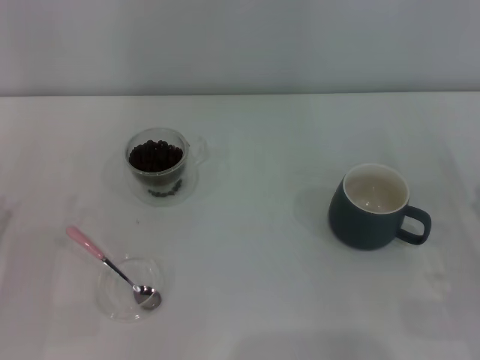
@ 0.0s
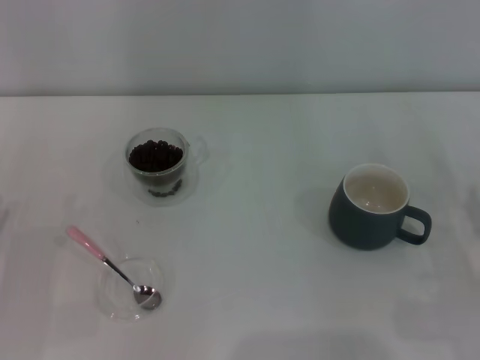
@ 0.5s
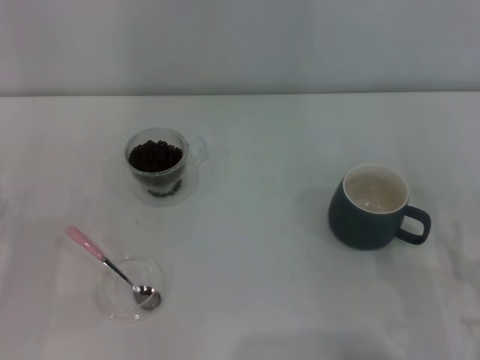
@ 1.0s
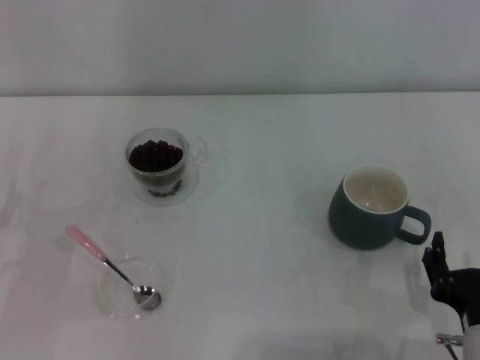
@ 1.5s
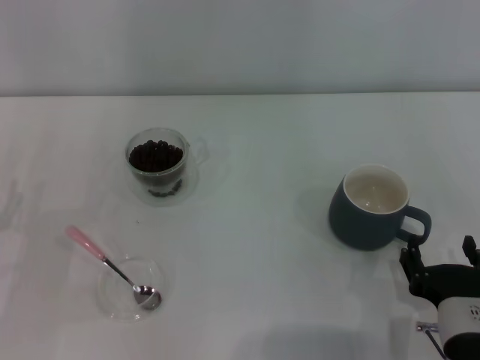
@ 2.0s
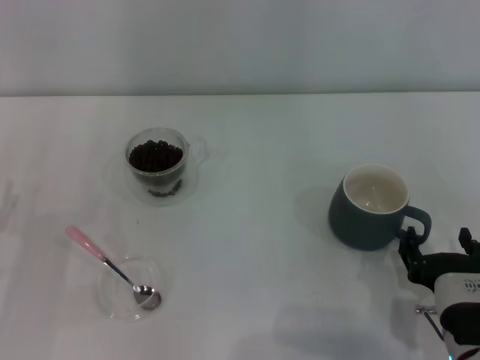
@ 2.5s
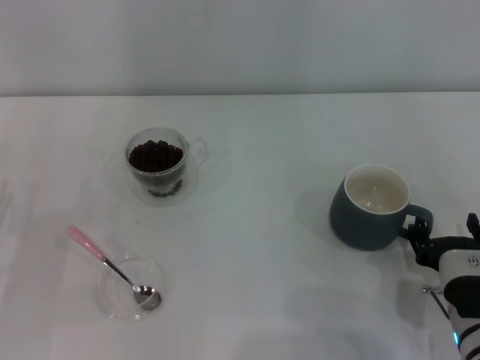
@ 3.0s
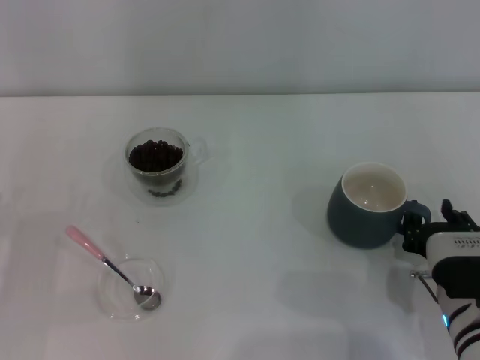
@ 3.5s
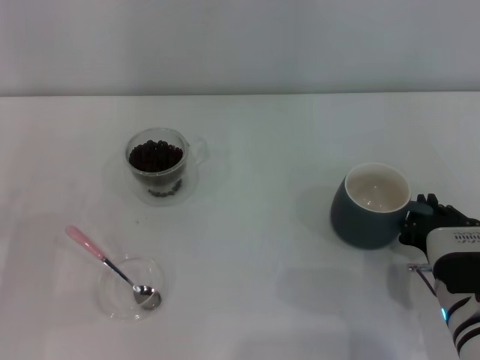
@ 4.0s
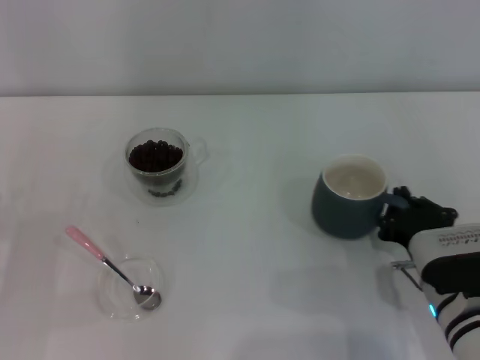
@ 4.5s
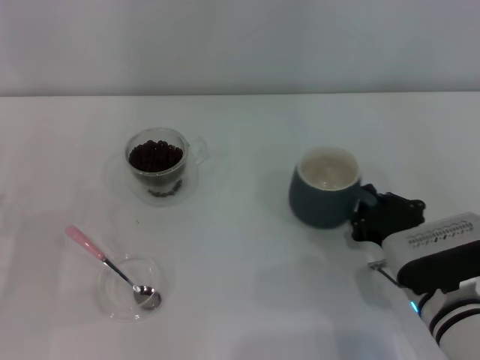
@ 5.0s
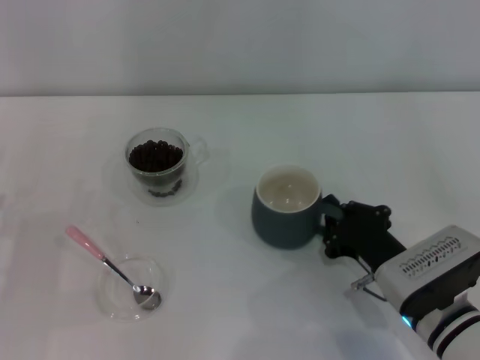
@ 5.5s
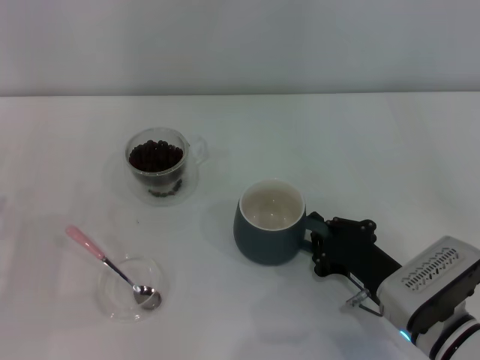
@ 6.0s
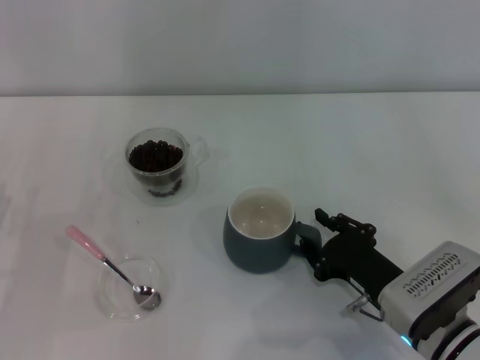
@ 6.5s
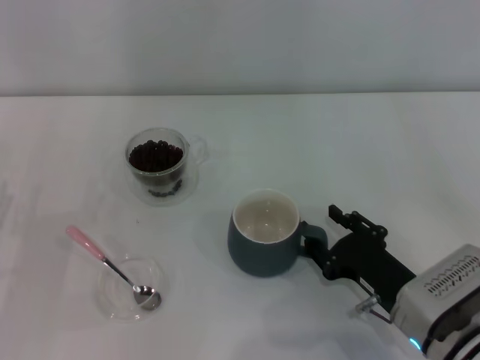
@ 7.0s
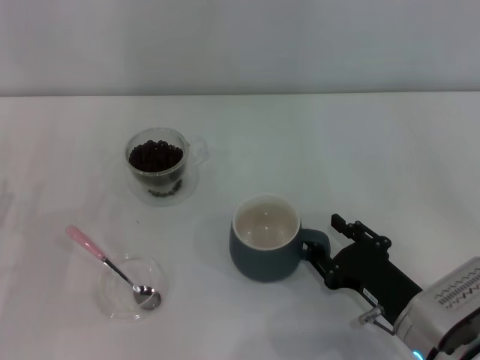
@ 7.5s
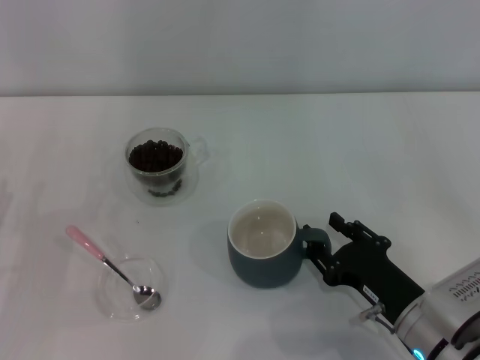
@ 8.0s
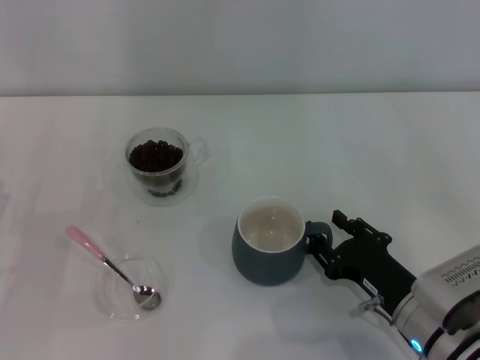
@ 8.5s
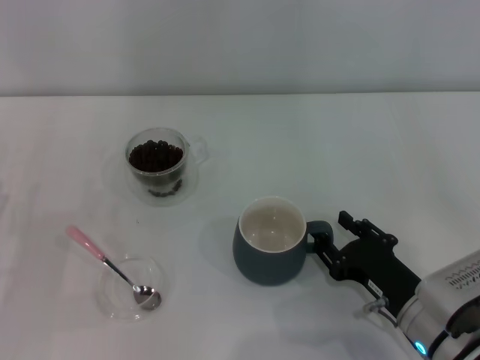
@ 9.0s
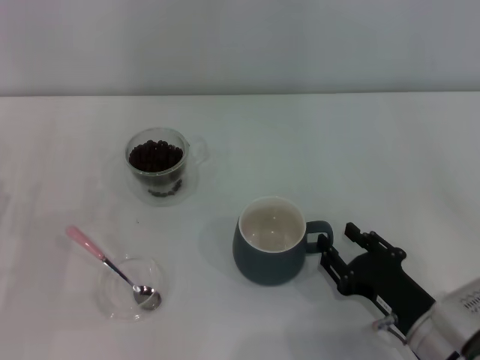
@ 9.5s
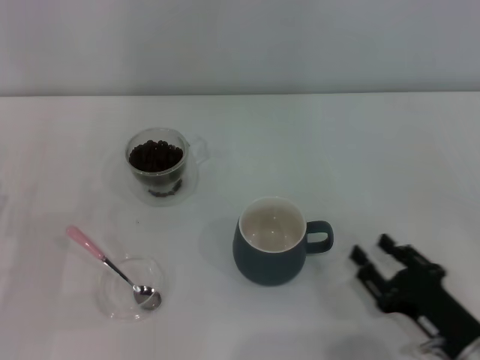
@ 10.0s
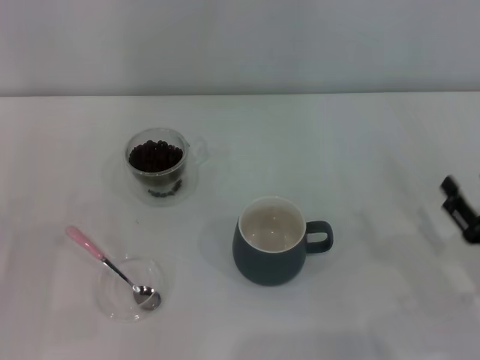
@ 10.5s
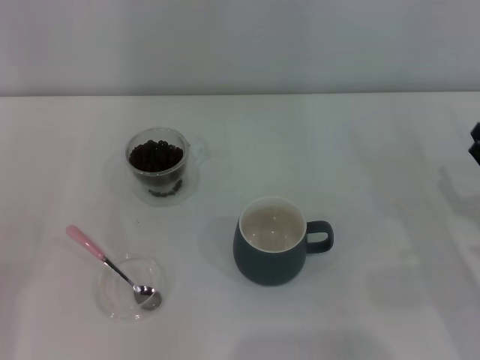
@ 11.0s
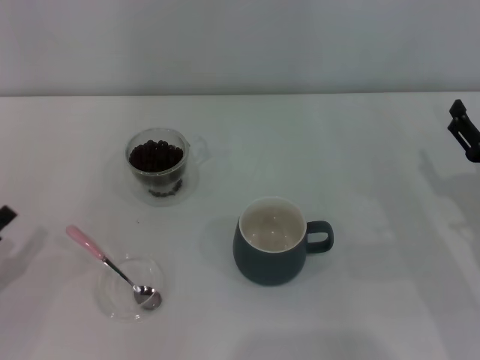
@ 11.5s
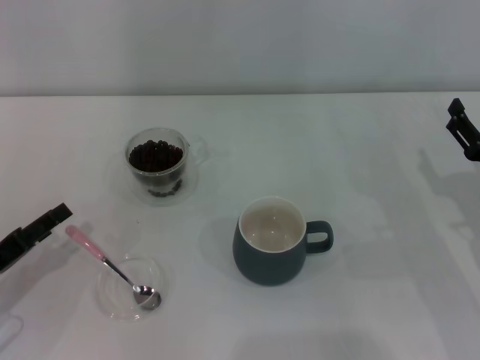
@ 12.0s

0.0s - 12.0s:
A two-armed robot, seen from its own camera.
Task of the whole recording: Use a pink spoon to take out the coffee beans from the glass and pour them into the gray cup.
Step, 0.0s - 9.5s: Move the cup to the center of view with the left gripper.
0.0s - 2.0s: The right gripper is displaced to the left by some 15 cm.
2.0s - 4.0s: The right gripper heads forward, covering roughly 5 cm, and closes its fingers.
6.0s - 8.0s: The right gripper opens.
8.0s - 10.0s: The right gripper moves some 5 cm.
10.0s - 12.0s: The right gripper heads forward and to the right, covering about 15 cm.

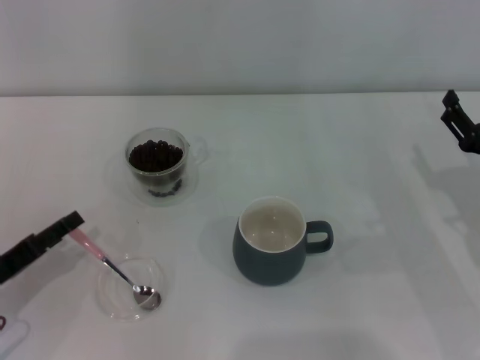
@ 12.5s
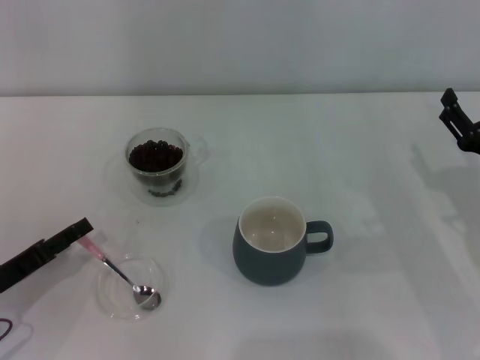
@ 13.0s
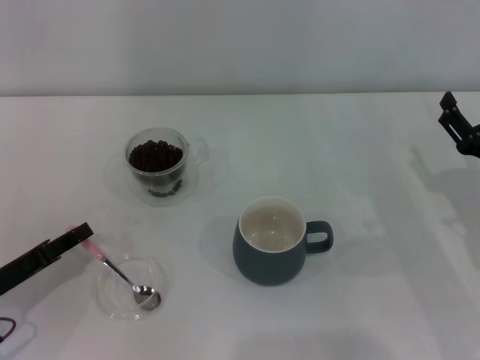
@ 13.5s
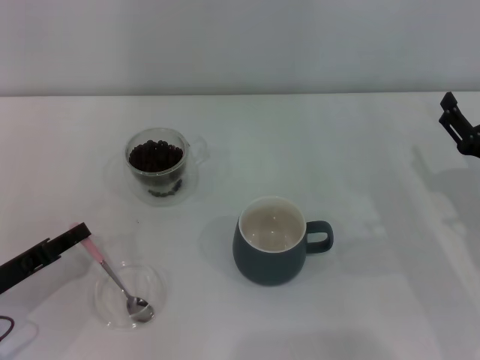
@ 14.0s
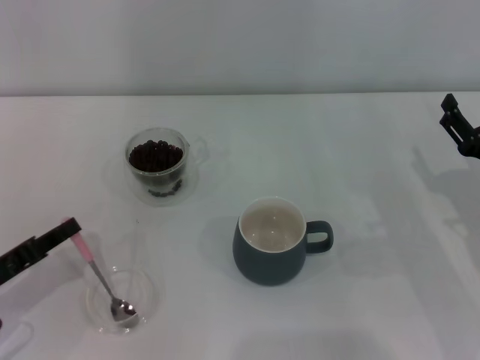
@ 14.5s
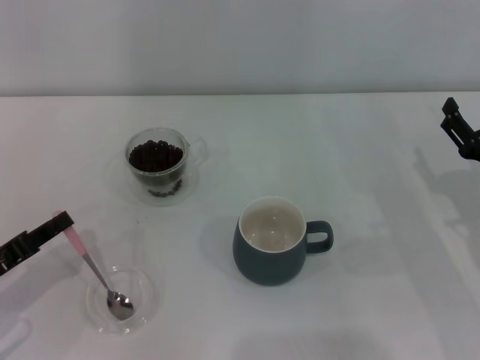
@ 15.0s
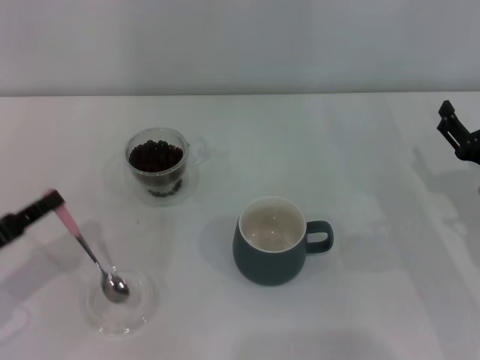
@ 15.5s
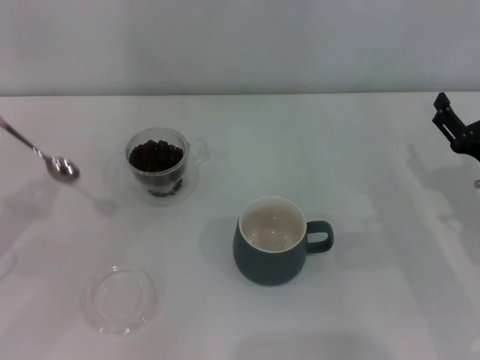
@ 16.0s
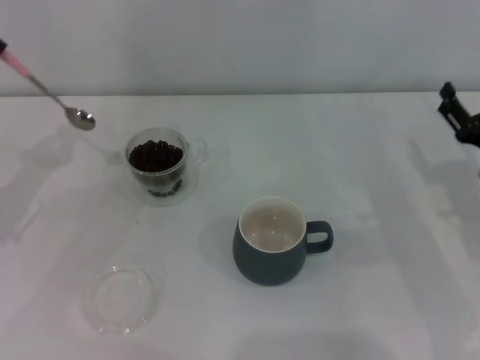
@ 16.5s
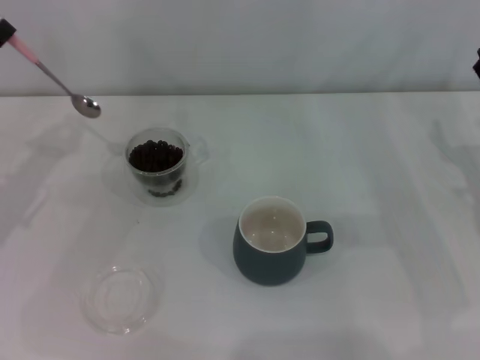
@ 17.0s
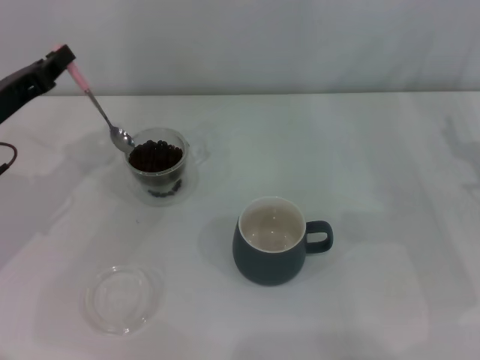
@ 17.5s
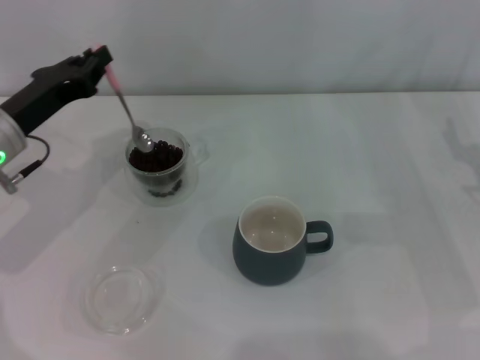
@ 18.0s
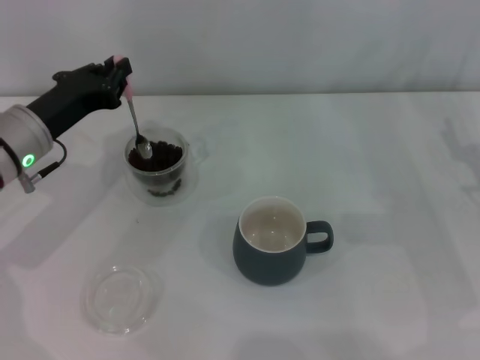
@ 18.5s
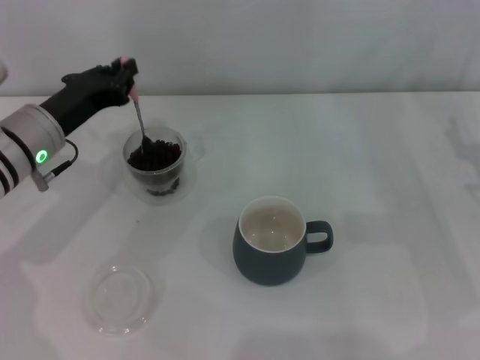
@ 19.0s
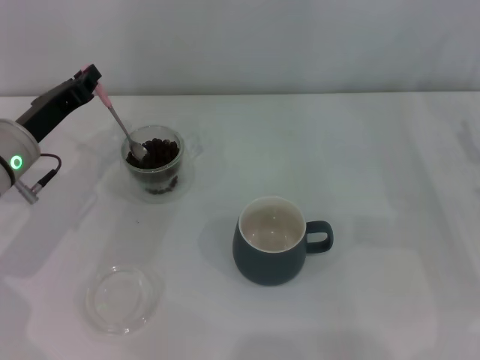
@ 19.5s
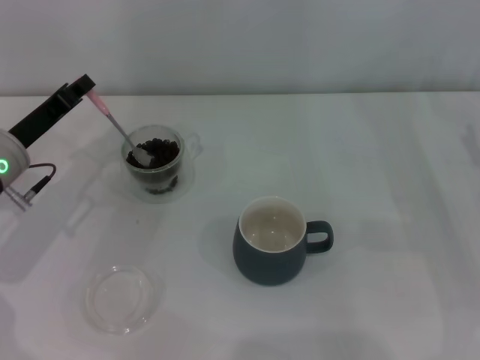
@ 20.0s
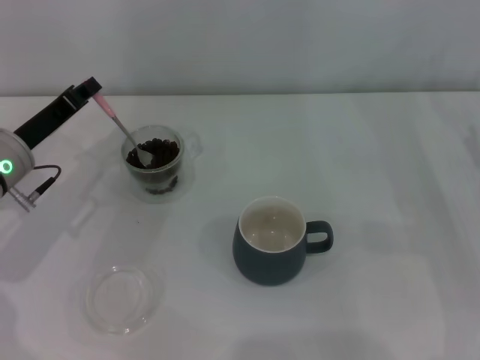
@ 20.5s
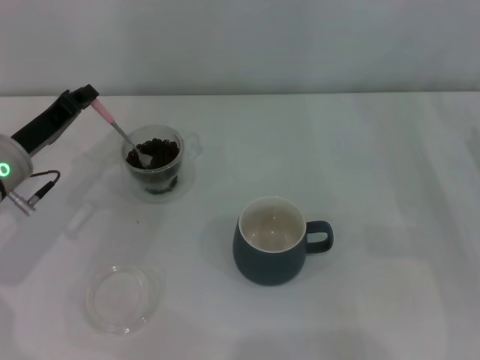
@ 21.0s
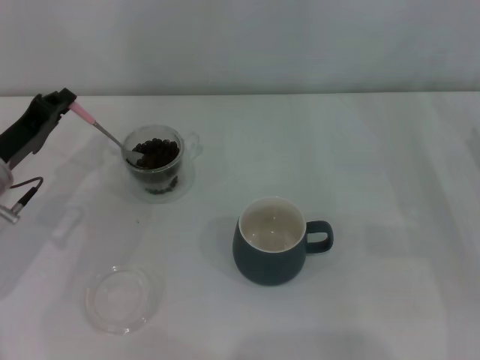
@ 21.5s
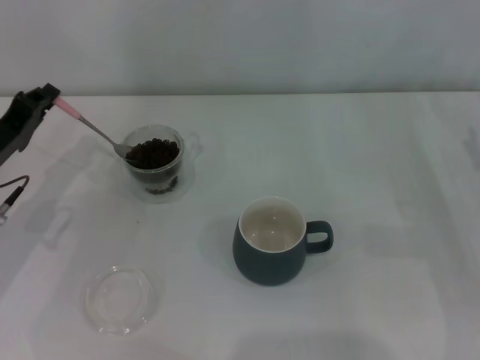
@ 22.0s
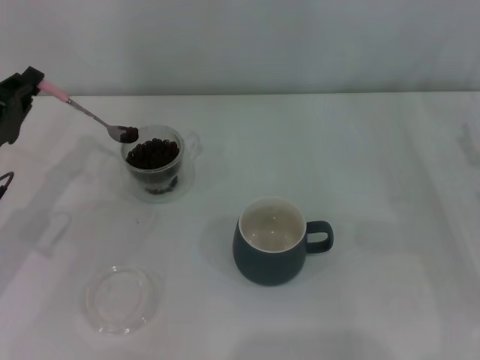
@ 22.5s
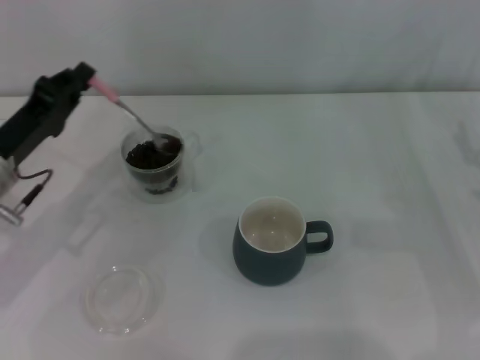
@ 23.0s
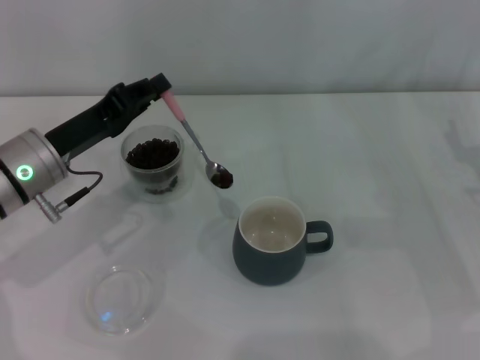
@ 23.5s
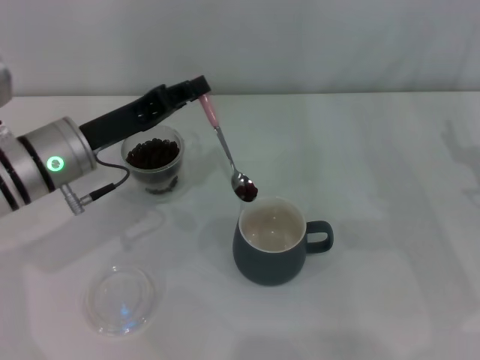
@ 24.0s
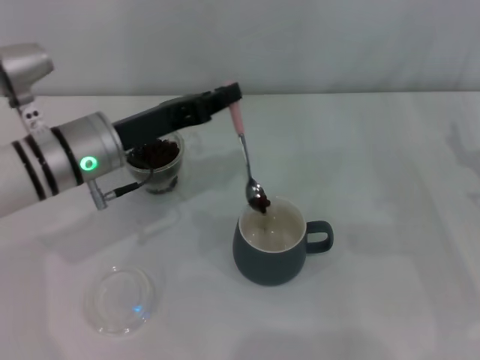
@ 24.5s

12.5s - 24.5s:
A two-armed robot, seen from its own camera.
Task of the whole recording: Use a pink spoon to take out the coffee beans from the glass and pour them into the gray cup.
Step, 12.5s - 15.5s: Pick up the spoon with the right gripper.
12.5s - 14.5s: The left gripper closes its fingers.
14.5s - 16.5s: The left gripper heads forward and upward, covering some 15 cm.
16.5s - 18.5s: The left gripper goes about 10 cm to the right.
20.5s - 22.5s: The left gripper moves some 5 cm.
22.5s - 24.5s: The left gripper travels to the right by approximately 15 cm.

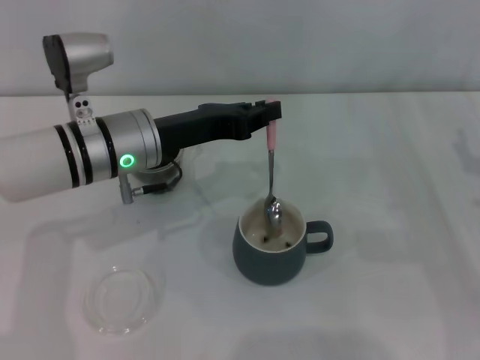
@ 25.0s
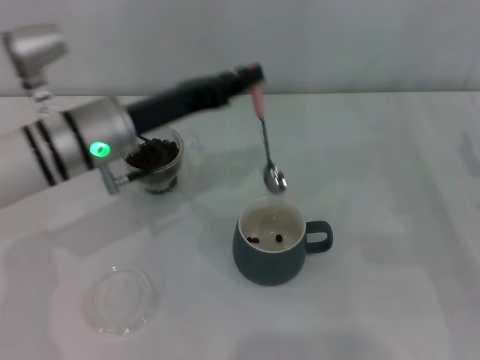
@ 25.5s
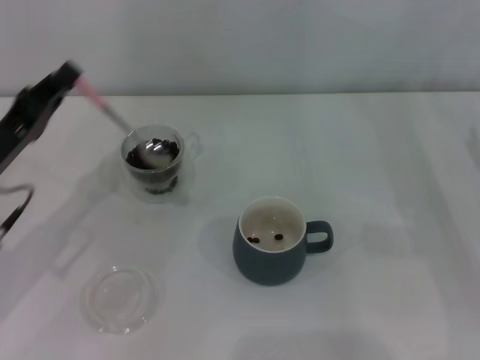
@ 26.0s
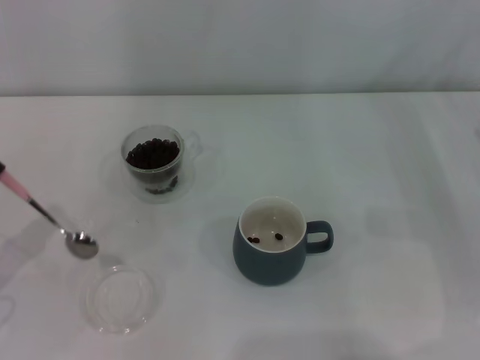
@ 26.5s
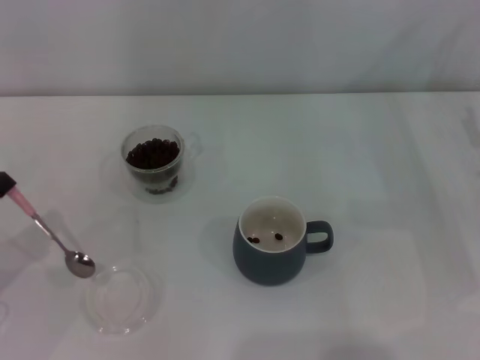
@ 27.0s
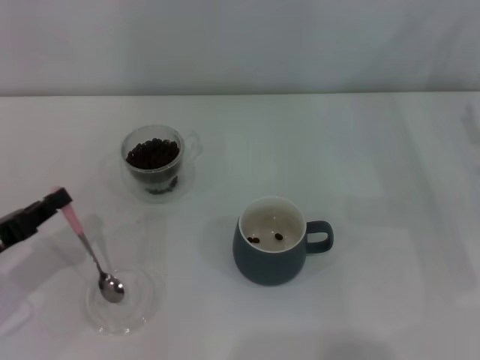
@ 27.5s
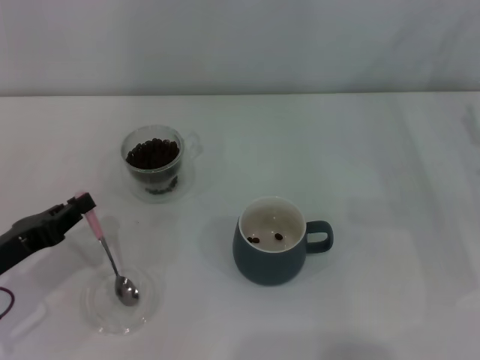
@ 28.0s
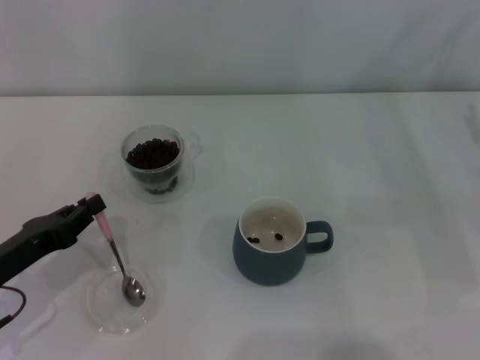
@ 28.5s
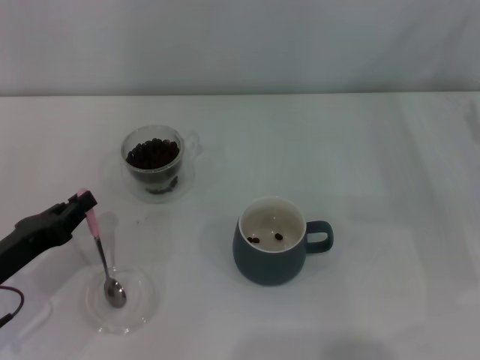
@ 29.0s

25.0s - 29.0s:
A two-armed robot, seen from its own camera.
Task of the whole recording: Use a pink spoon to take out the coffee beans from the glass and pour them into the gray cup.
25.0s - 27.0s: The left gripper moves to the left and backward, approximately 25 cm.
27.0s - 29.0s: The left gripper travels to the right by some 5 cm.
